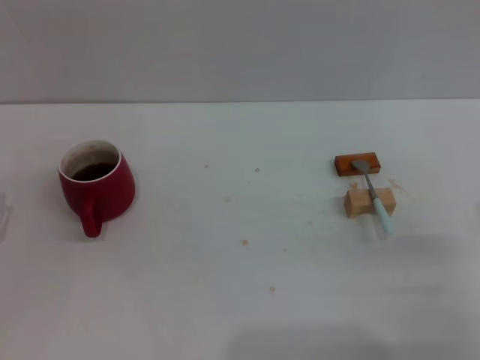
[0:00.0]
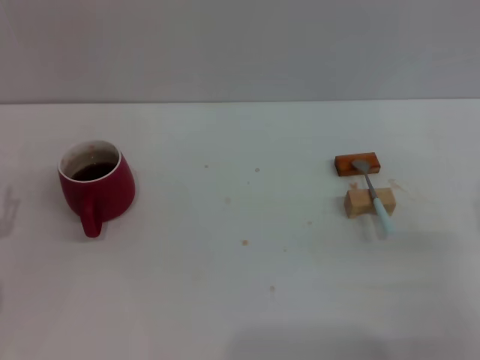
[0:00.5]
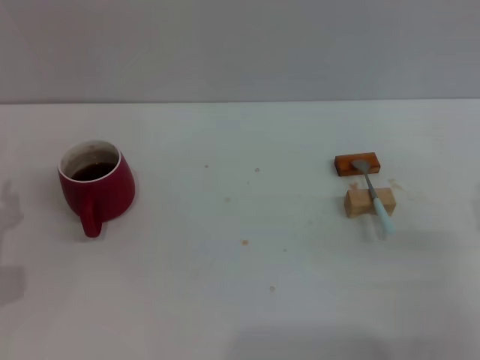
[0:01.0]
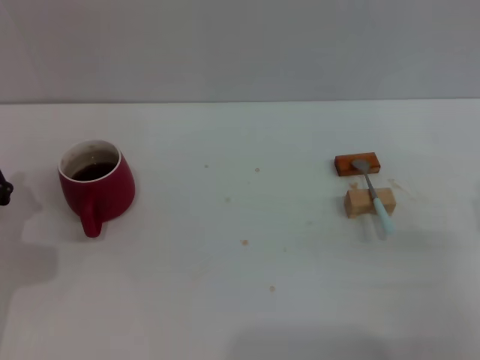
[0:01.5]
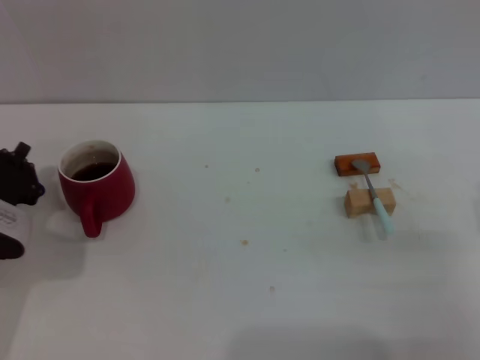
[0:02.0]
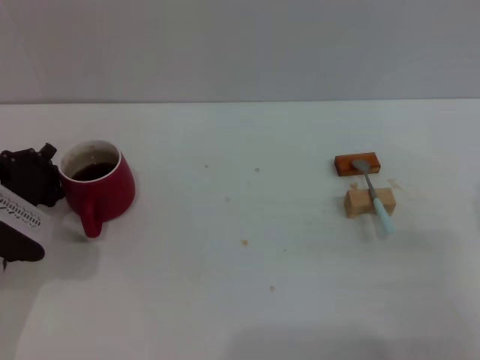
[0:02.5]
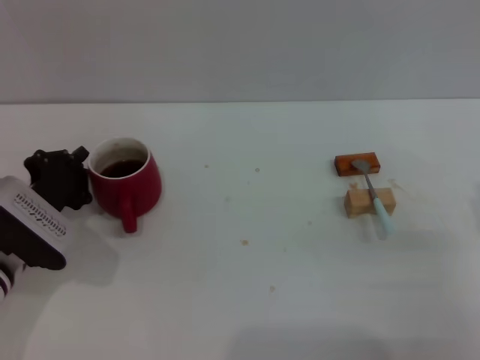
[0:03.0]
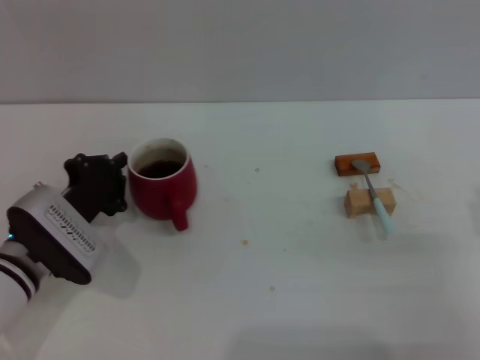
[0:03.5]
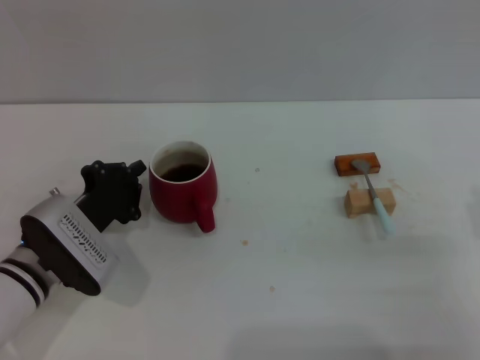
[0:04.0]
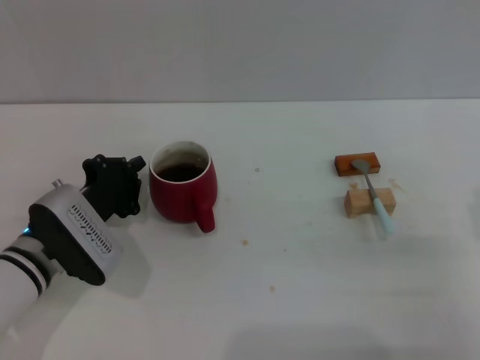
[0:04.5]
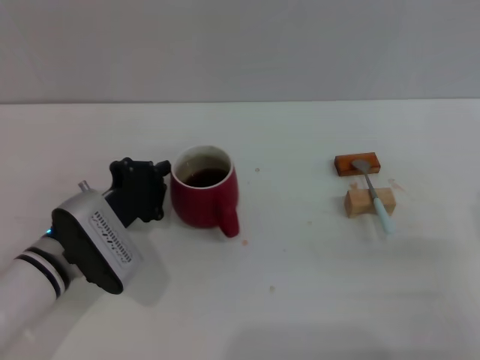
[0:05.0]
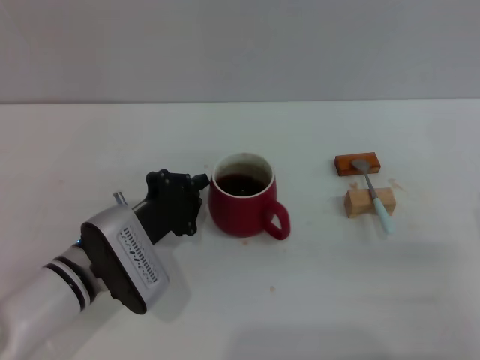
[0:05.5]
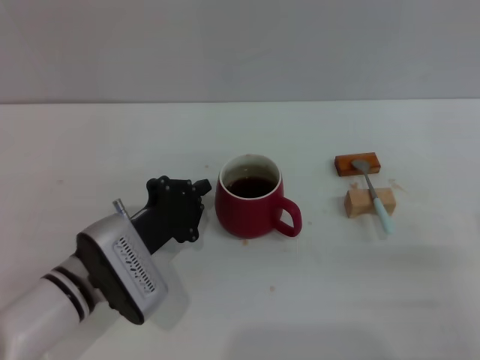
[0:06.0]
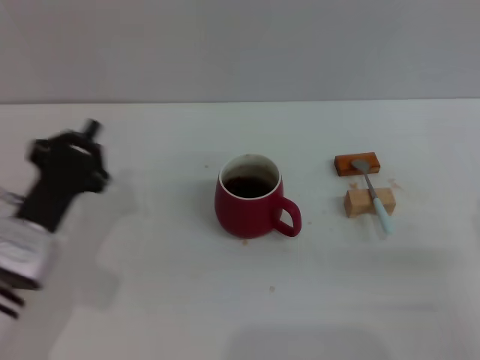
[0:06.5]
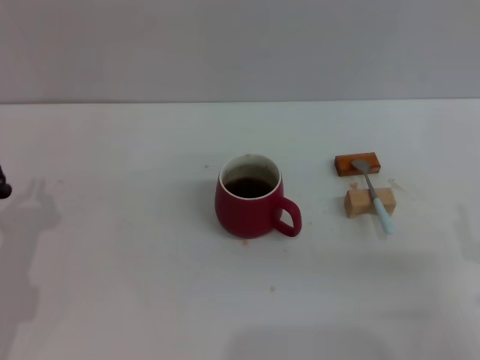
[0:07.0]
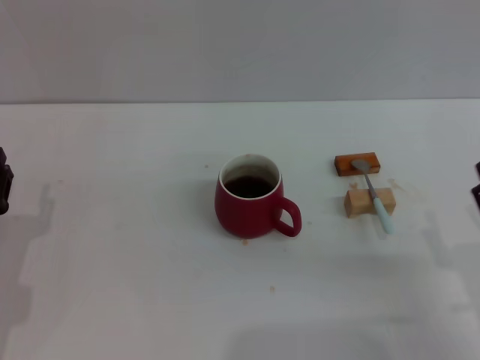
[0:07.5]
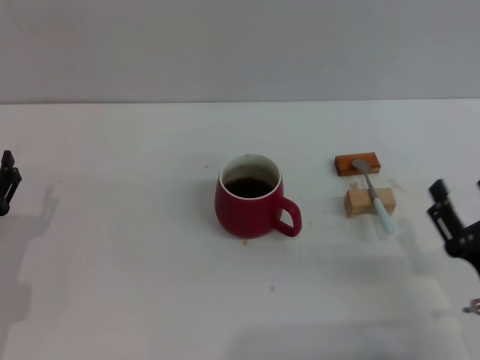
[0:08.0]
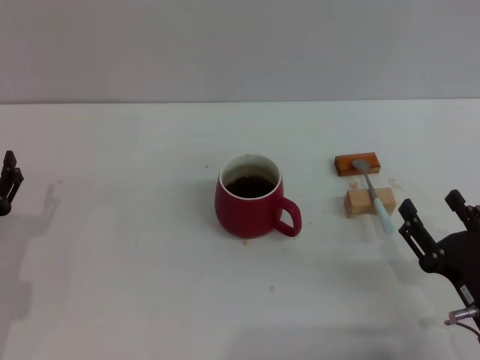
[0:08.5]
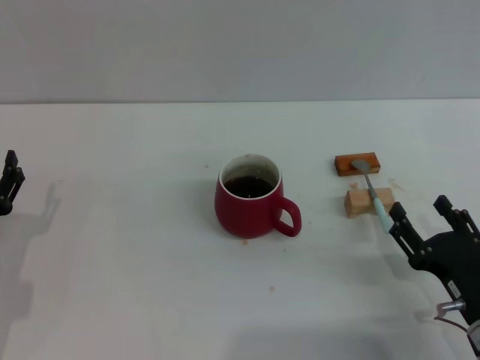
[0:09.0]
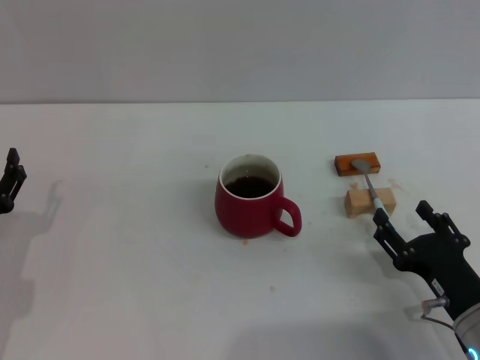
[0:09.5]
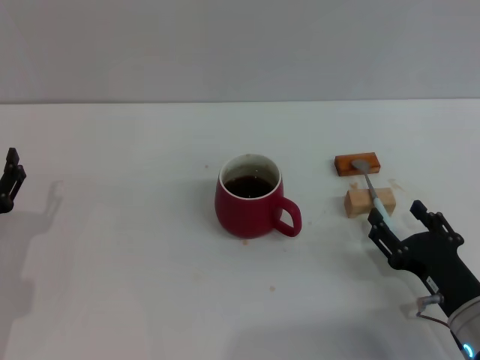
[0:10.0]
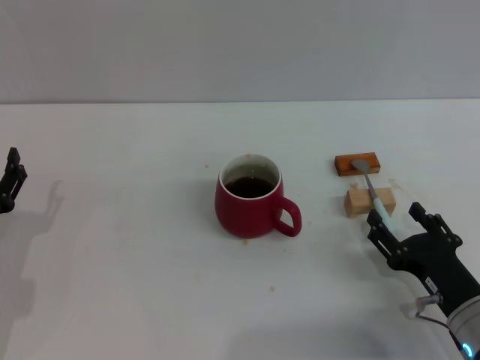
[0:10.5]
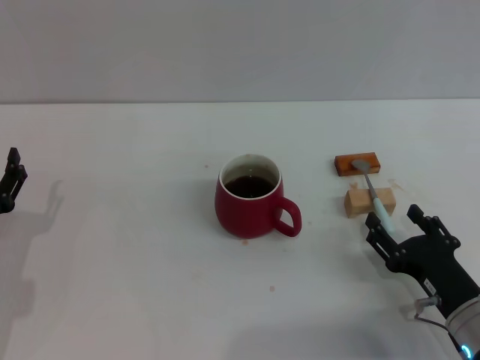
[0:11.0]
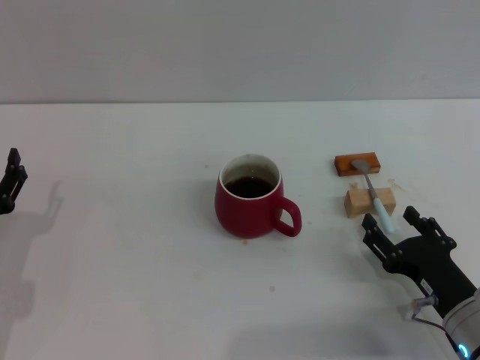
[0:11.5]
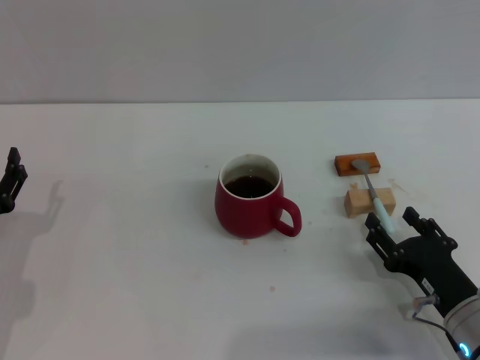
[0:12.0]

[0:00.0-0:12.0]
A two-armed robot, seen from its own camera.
Task of the whole recording: Move the red cup to the center, lift the blue spoon, stir it three times in the cup, and put the spoon into the cup.
Step, 0:00.0 to 0:06.0: Move the cup with coffee to the center of view with the left gripper.
0:00.0 to 0:02.0: The left gripper travels forward by some 5 cm, and closes its fingers.
0:02.0 to 0:04.0: The left gripper heads to the right, covering roughly 5 cm.
0:04.0 to 0:06.0: The left gripper heads to the right, covering about 5 cm.
0:06.0 to 0:08.0: The left gripper shifts roughly 15 cm to the left and backward, and opens its fingers. Meanwhile the right gripper moves roughly 5 cm.
0:08.0 to 0:10.0: There are only small adjustments of the grippers.
0:10.0 to 0:12.0: Both grippers stay put.

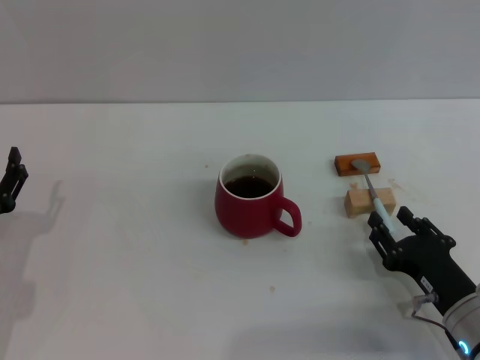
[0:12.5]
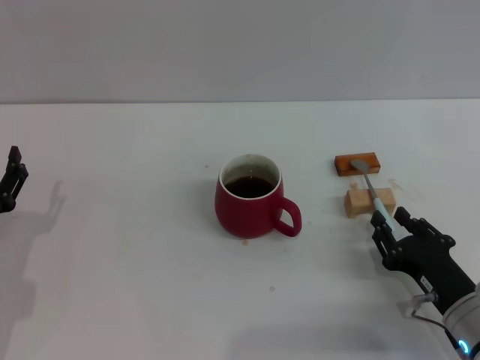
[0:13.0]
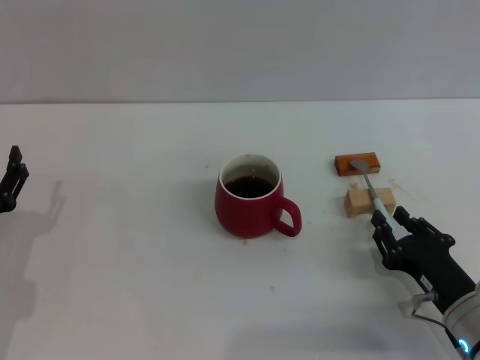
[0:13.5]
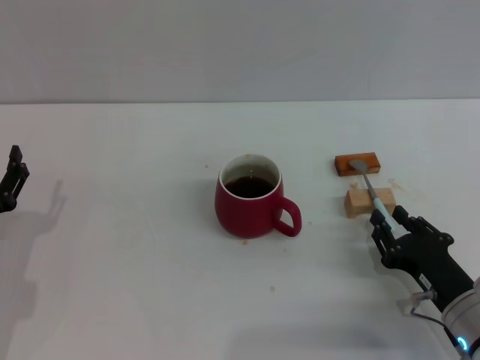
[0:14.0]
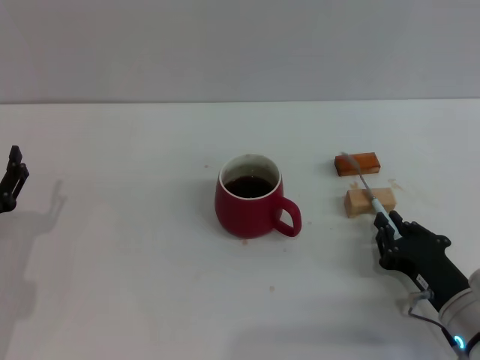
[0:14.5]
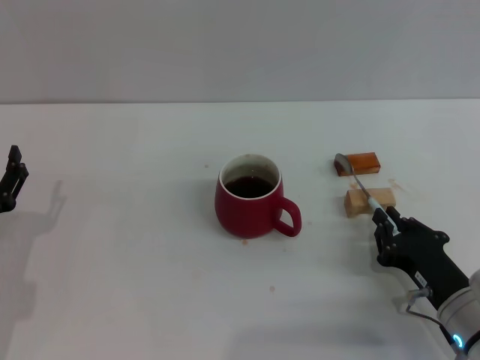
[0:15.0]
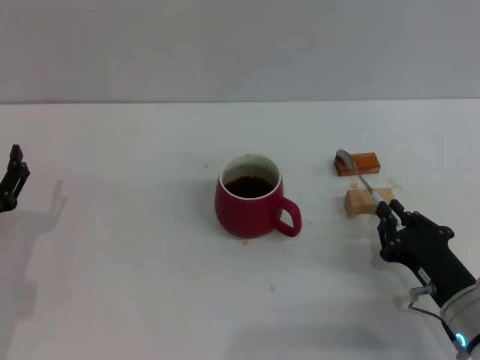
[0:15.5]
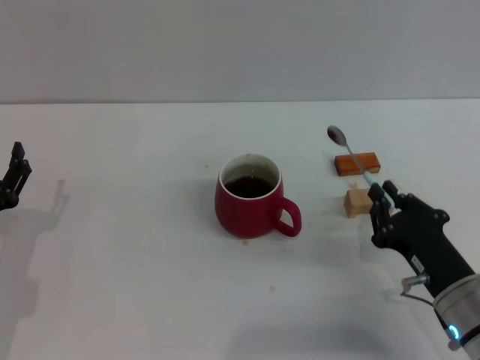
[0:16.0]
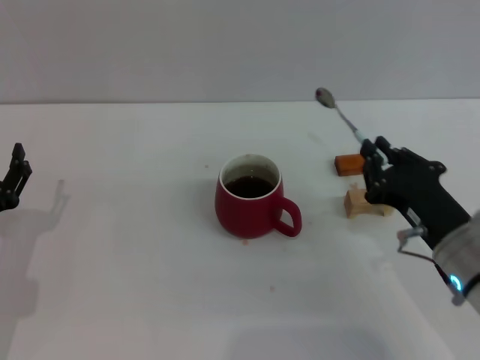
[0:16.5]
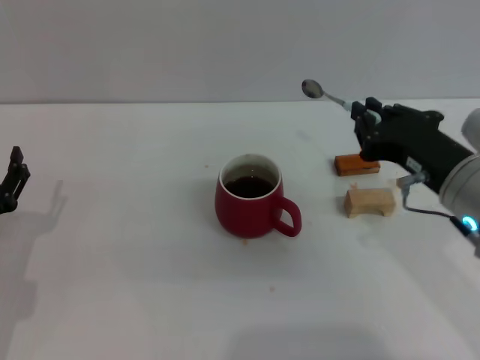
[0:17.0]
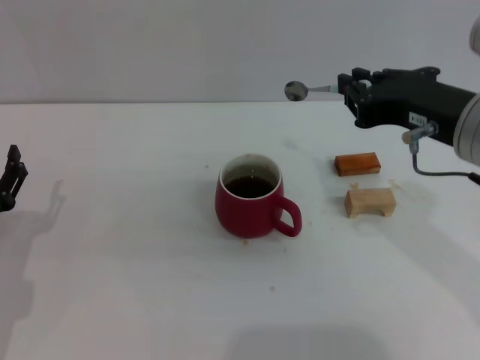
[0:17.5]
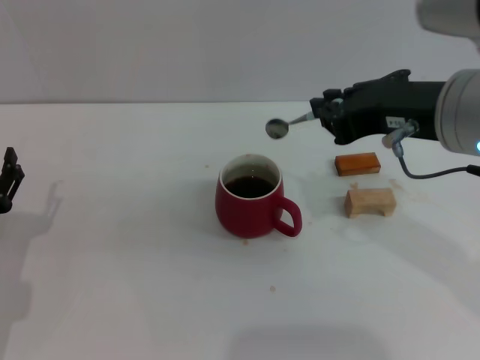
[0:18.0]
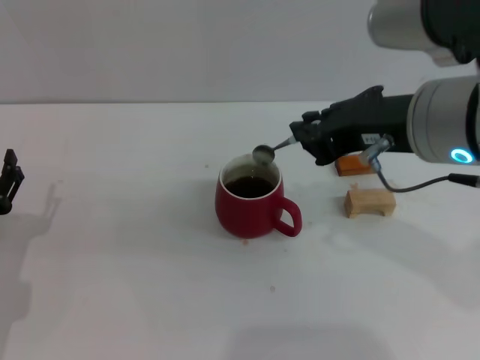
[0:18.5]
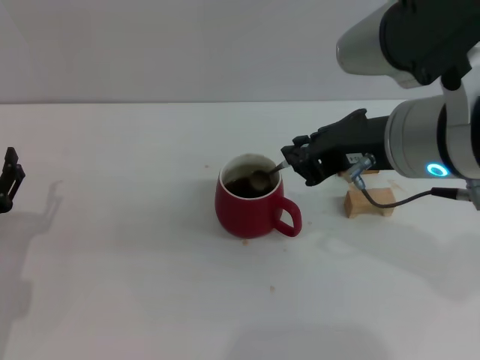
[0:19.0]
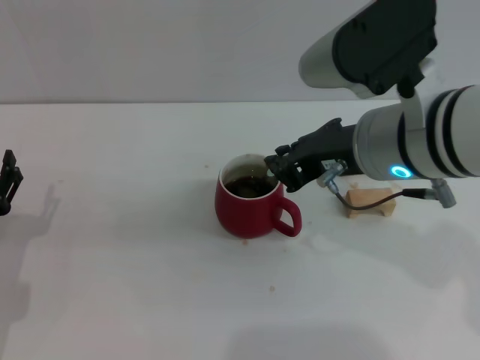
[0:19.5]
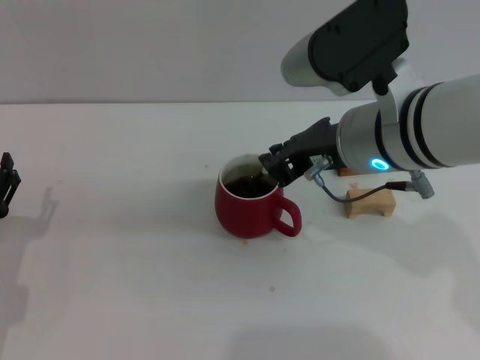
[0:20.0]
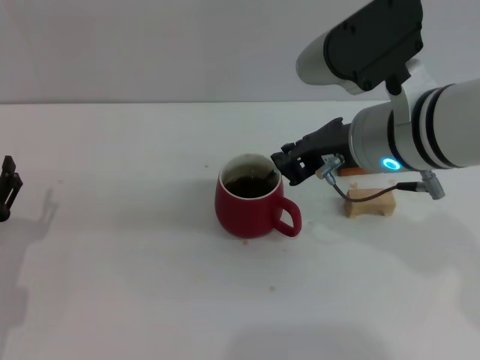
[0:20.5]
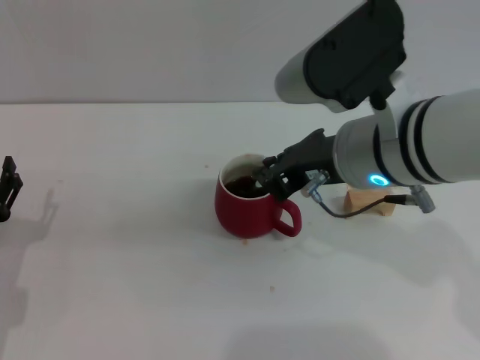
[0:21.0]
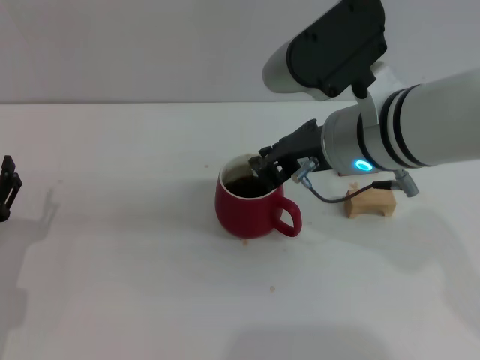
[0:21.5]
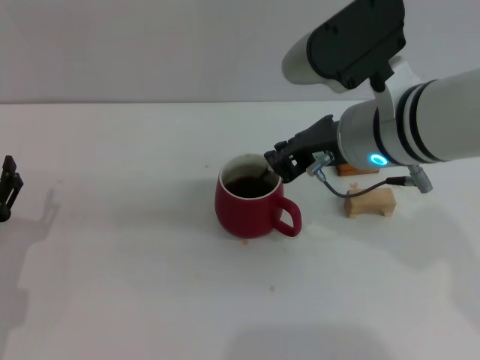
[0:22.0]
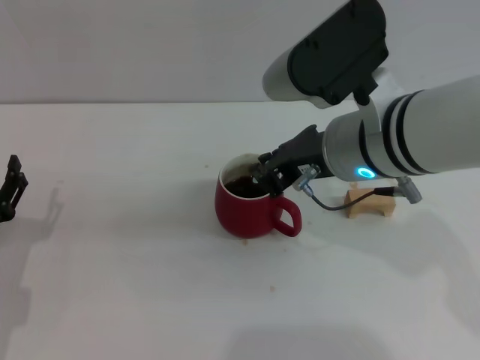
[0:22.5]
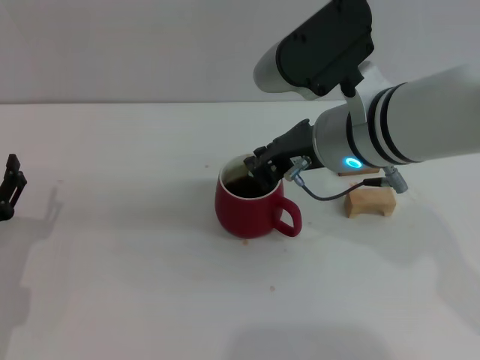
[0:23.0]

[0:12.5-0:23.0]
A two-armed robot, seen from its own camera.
Task of the whole recording: Move the red cup to the center, lift the blue spoon, stir it three times in the cup, and put the spoon into the cup.
Step, 0:12.5 to 0:16.0: Pick up the spoon with the right gripper.
0:12.5 to 0:14.5: The right gripper closes.
0:14.5 to 0:16.5: The right gripper is displaced upward by approximately 10 cm.
0:16.5 to 0:19.0: The right gripper goes about 20 cm upward and to the left.
0:19.0 to 0:21.0: The grippers stay close to where they were, moving slightly.
0:21.0 to 0:23.0: The grippers move only a little.

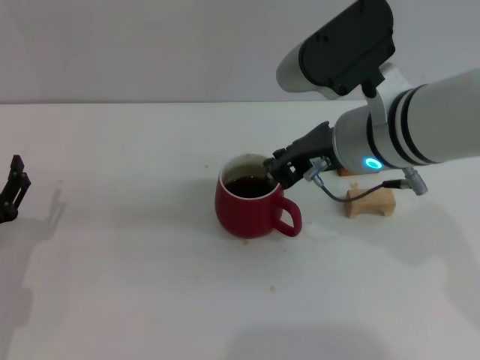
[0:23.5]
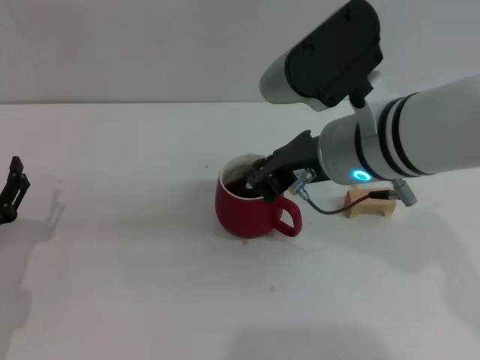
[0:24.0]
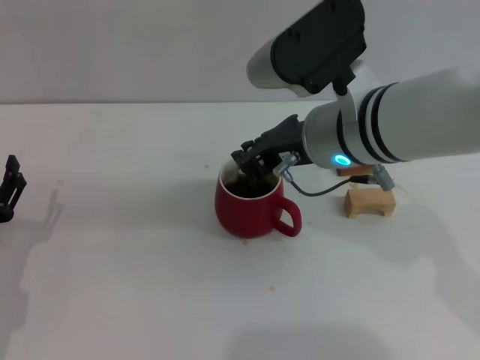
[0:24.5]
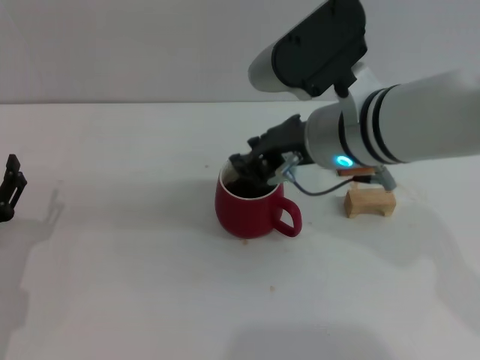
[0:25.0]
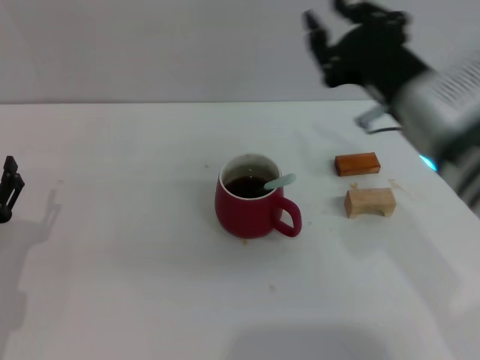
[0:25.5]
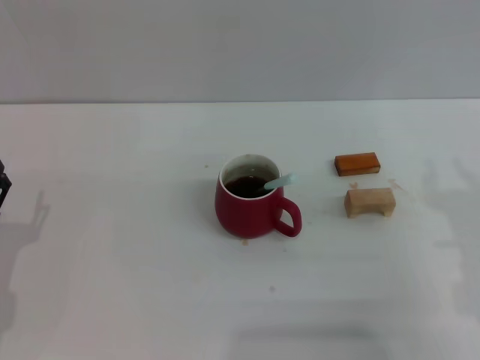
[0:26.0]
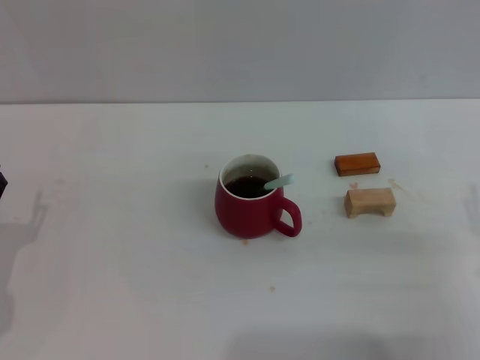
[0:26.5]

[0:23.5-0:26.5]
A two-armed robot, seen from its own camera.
Task of the whole recording: Move the red cup to the center, lift the blue spoon, stir it three times in the cup, and put the spoon into the cup.
0:23.5 to 0:25.0: The grippers stay close to where they were, moving slightly.
0:25.0 to 0:26.5: The right gripper goes approximately 25 cm to the right, backward and downward, and opens up.
